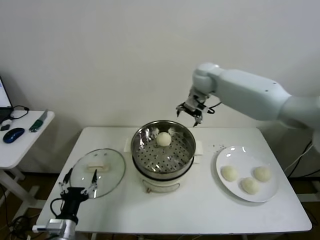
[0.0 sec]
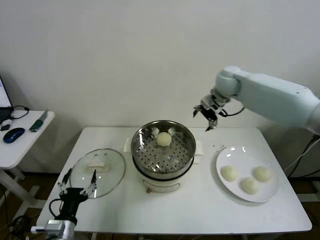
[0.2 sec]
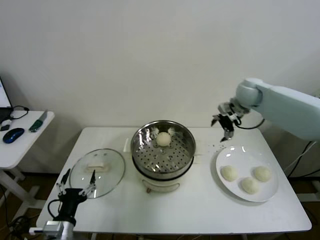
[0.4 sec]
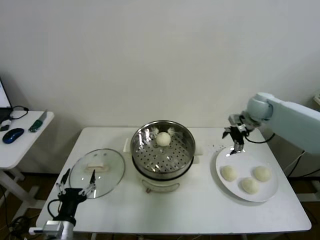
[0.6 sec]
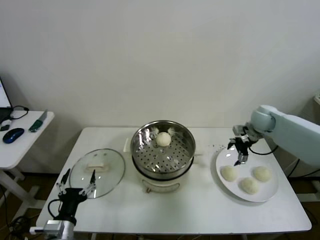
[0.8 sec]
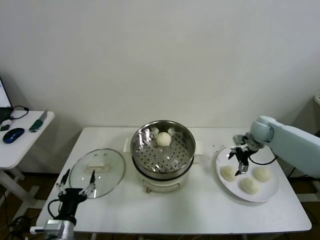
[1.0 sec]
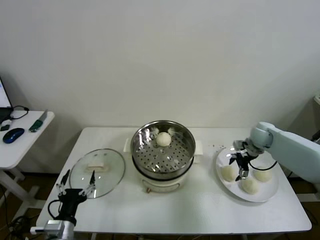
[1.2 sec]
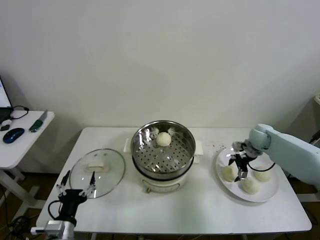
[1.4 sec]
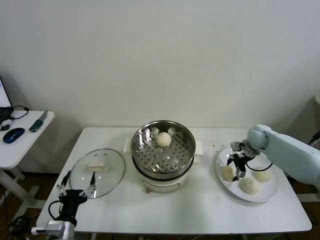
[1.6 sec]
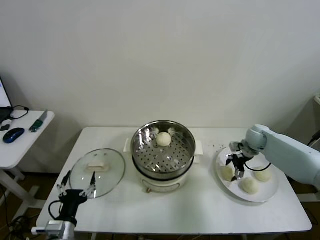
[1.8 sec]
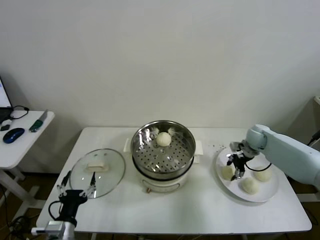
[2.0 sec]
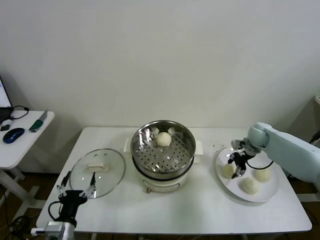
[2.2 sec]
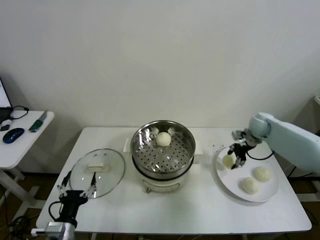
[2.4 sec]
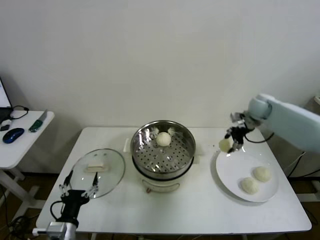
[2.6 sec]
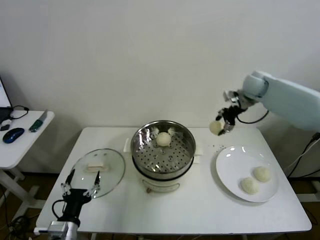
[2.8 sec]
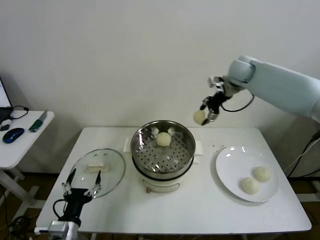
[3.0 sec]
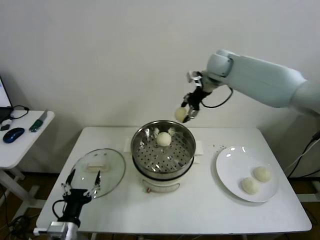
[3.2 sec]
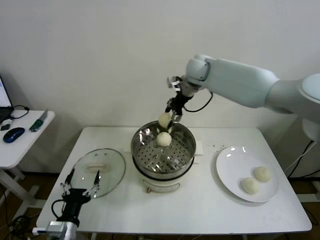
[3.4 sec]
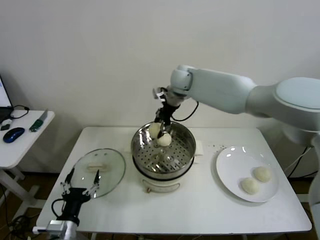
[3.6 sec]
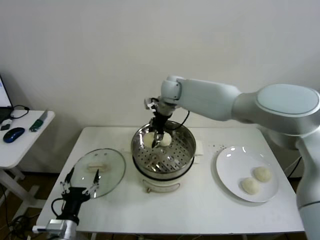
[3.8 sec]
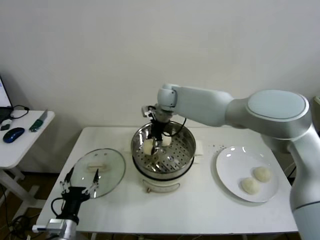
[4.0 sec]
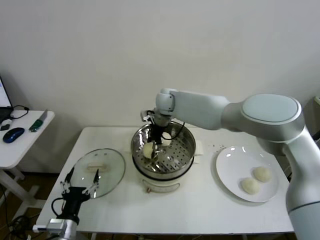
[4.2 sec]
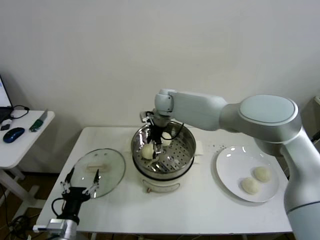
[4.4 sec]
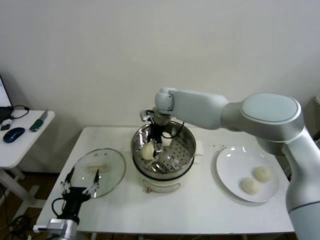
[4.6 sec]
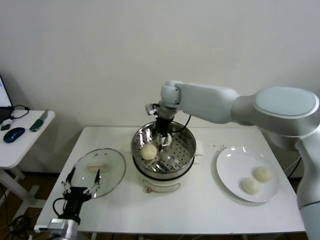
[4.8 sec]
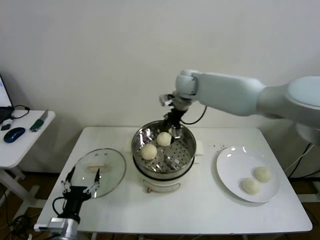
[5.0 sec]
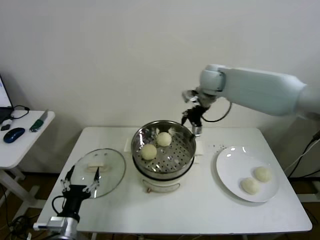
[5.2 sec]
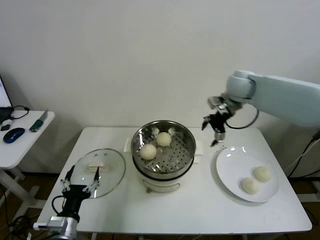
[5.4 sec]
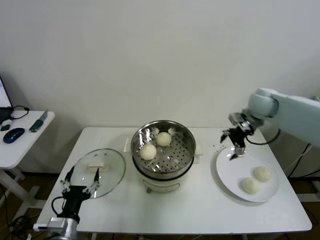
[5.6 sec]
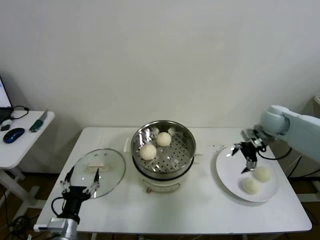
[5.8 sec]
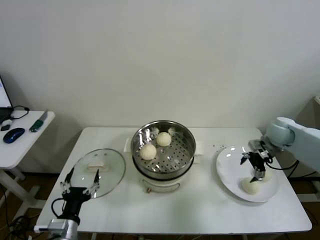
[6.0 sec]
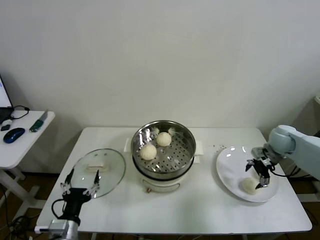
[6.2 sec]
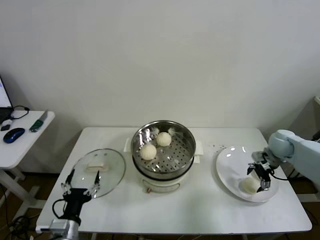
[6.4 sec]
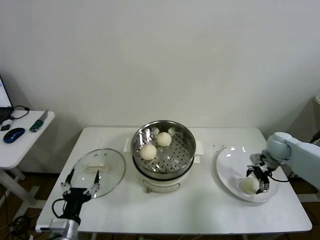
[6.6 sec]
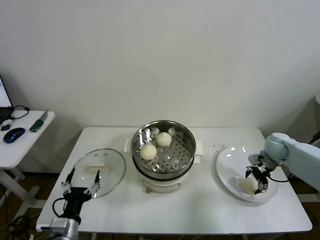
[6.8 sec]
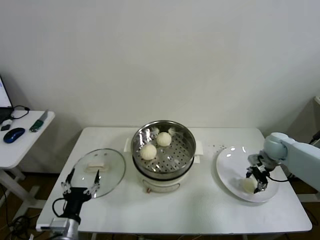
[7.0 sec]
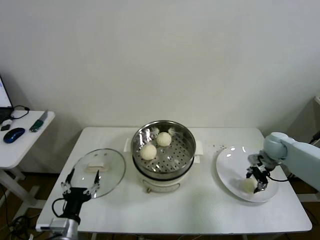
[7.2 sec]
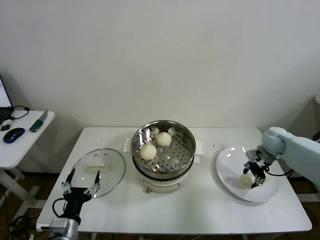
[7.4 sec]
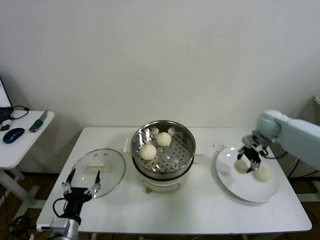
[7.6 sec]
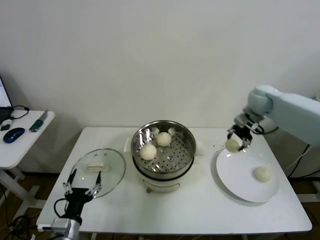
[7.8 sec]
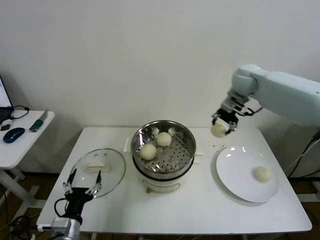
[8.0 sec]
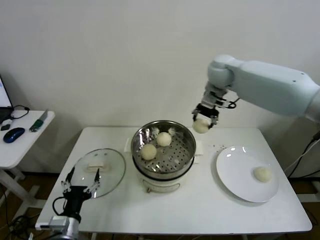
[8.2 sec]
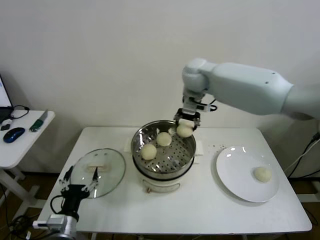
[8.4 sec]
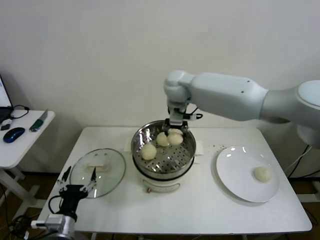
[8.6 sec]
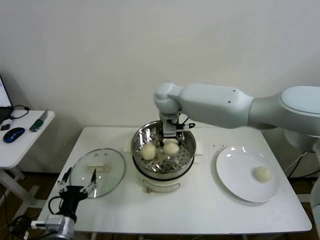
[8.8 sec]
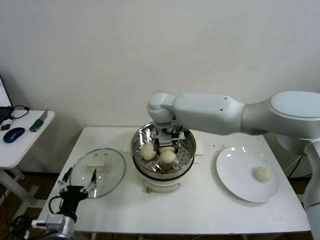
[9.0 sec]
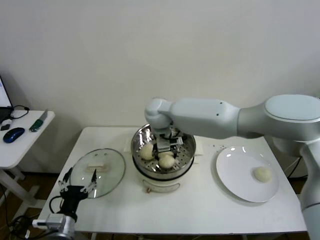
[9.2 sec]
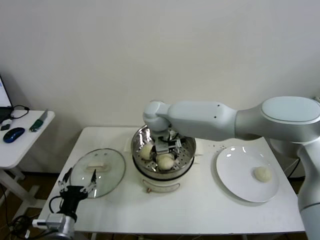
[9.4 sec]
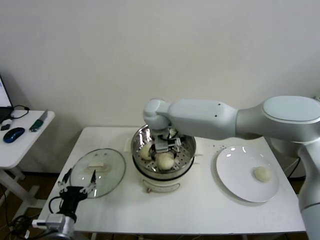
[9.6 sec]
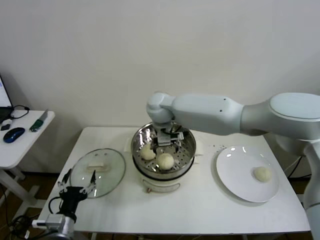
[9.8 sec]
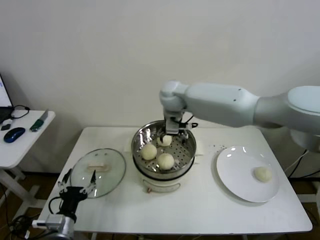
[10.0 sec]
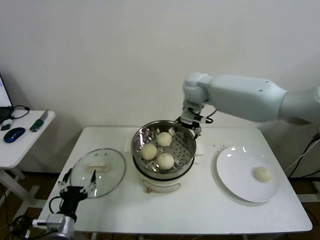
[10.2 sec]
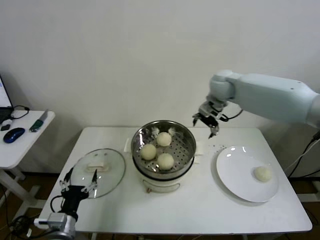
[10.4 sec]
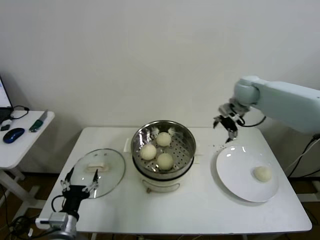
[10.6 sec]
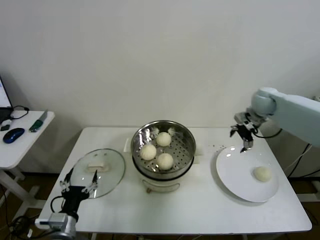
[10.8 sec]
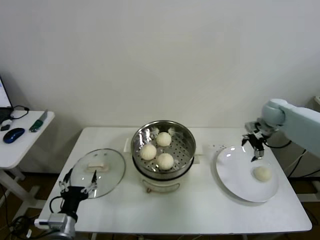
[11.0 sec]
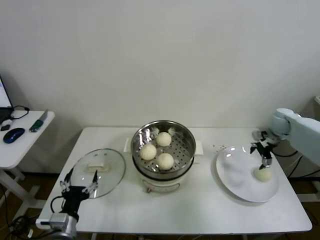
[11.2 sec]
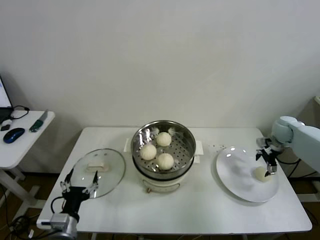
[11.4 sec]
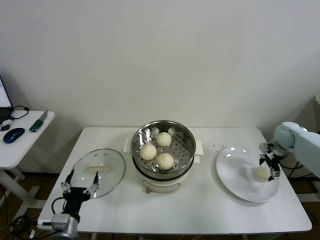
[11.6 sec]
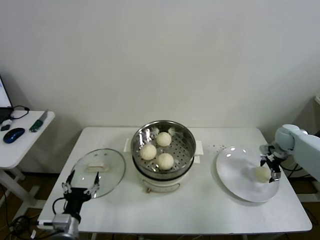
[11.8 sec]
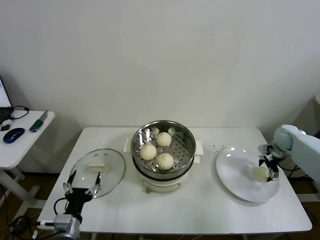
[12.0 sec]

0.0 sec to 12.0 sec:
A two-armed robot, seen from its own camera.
Step, 0.0 sec to 1.8 sec: Grasp the baozi in the plate with right gripper.
Step, 2.0 sec to 4.2 sec: Place the baozi on the steamer with right gripper.
Step, 4.4 sec to 6.8 sec: Grasp the baozi in the plate with right gripper.
Step, 7.0 sec to 9.4 sec: Place the baozi on the steamer with right gripper.
0.0 sec to 1.6 sec: The right gripper travels to the right and downward by roughly 35 cm.
1.6 sec to 3.0 sec: The right gripper goes about 30 cm upward and to the left, and closes up.
3.0 sec to 4.4 sec: The right gripper travels to the left and downward by roughly 30 cm, and opens up.
4.4 sec to 6.0 sec: The right gripper travels to the right by approximately 40 cm.
6.0 sec to 7.6 sec: The right gripper reaches roughly 5 cm downward, then returns, and closes its fingers.
7.6 sec to 9.0 sec: The right gripper is displaced to the left by some 40 cm.
9.0 sec to 10.4 sec: The right gripper heads to the right, covering roughly 20 cm, and opens its fingers.
10.4 sec to 12.0 sec: The right gripper travels to the right and downward by approximately 35 cm.

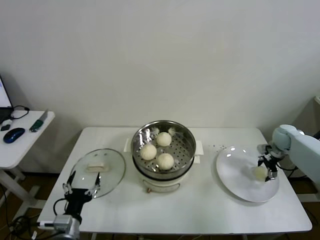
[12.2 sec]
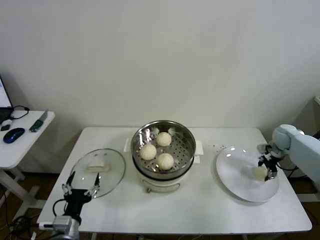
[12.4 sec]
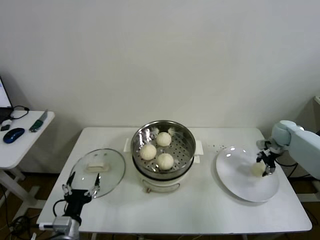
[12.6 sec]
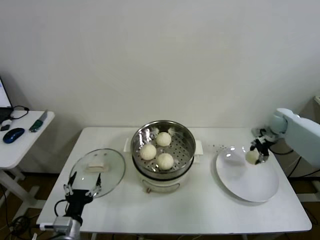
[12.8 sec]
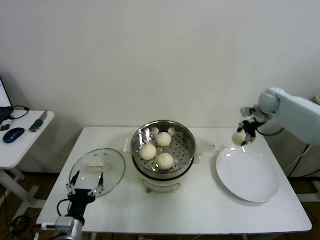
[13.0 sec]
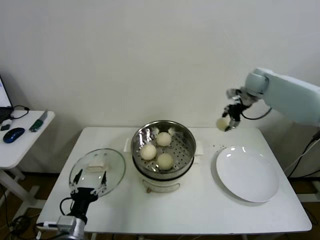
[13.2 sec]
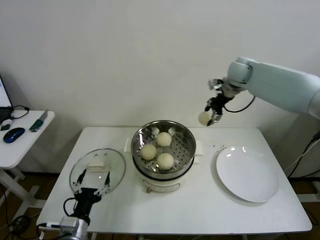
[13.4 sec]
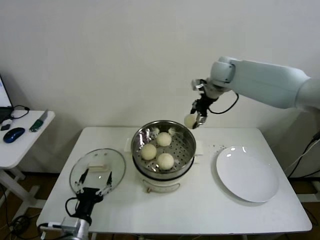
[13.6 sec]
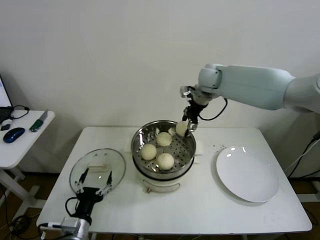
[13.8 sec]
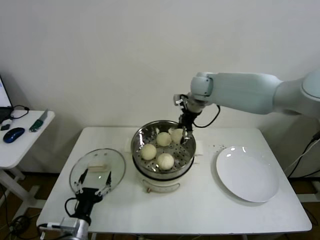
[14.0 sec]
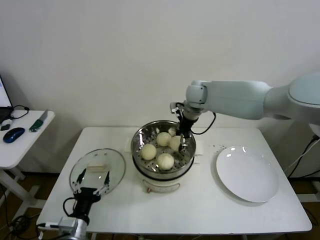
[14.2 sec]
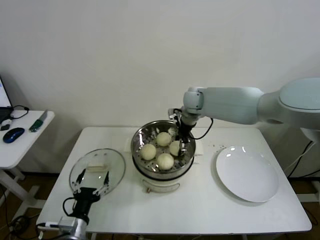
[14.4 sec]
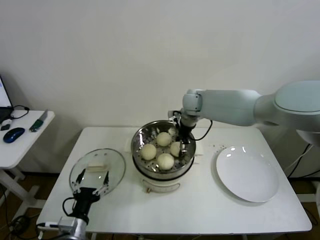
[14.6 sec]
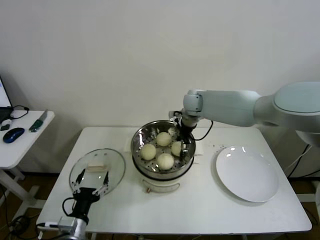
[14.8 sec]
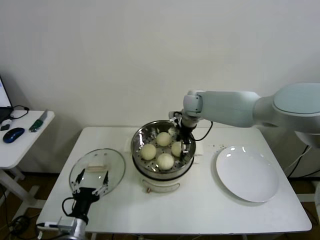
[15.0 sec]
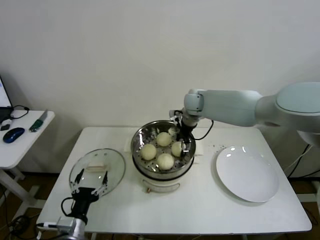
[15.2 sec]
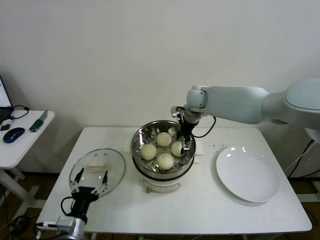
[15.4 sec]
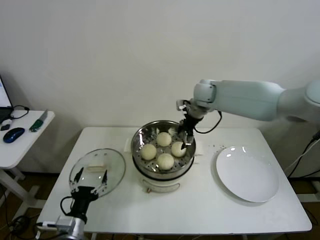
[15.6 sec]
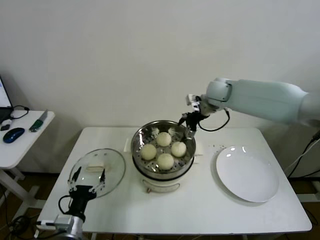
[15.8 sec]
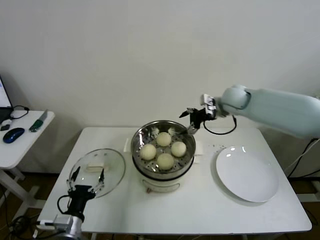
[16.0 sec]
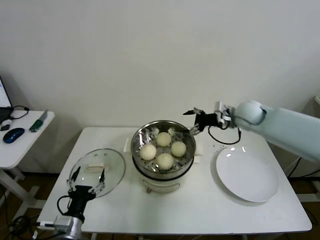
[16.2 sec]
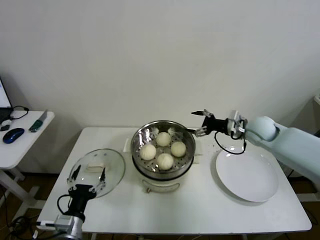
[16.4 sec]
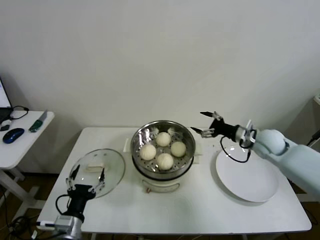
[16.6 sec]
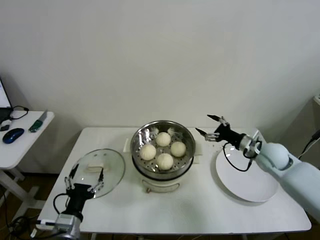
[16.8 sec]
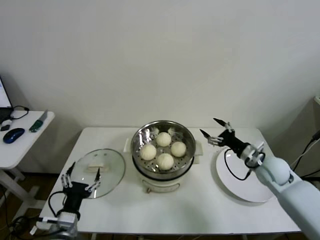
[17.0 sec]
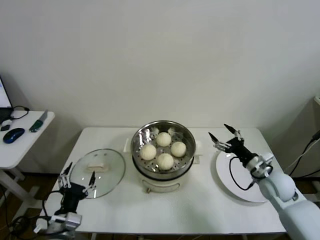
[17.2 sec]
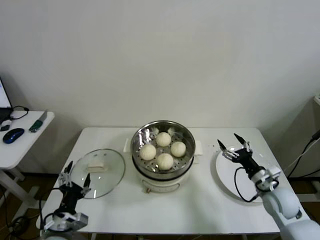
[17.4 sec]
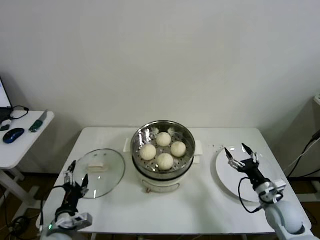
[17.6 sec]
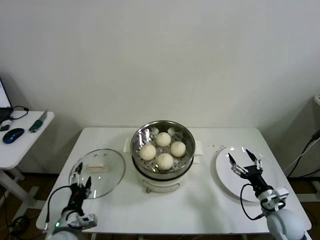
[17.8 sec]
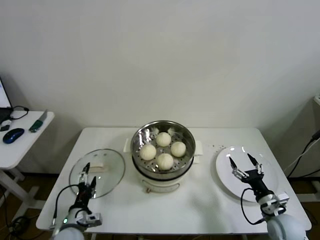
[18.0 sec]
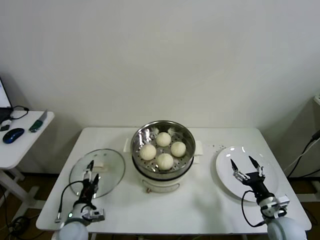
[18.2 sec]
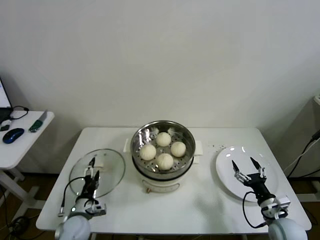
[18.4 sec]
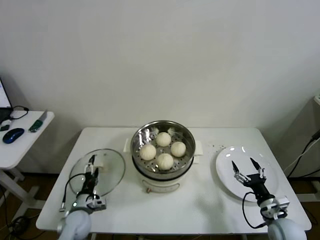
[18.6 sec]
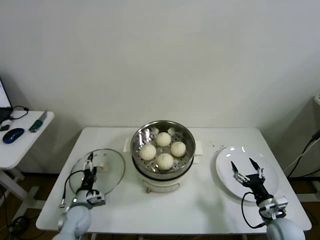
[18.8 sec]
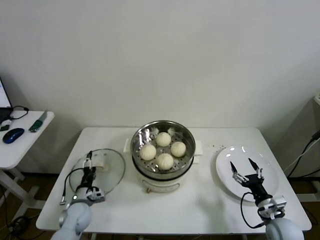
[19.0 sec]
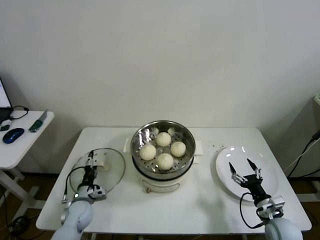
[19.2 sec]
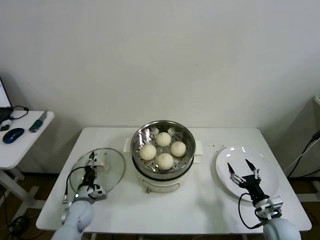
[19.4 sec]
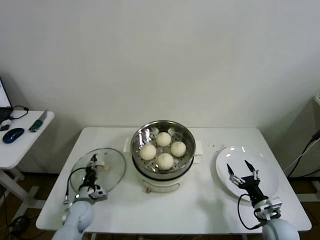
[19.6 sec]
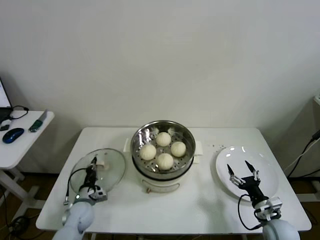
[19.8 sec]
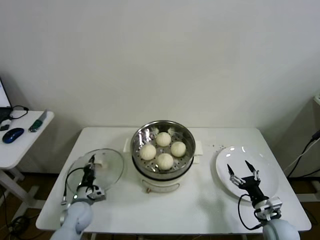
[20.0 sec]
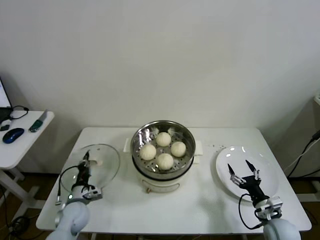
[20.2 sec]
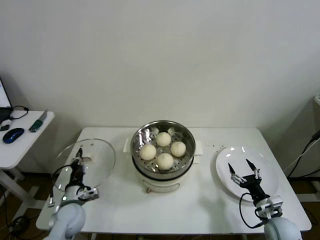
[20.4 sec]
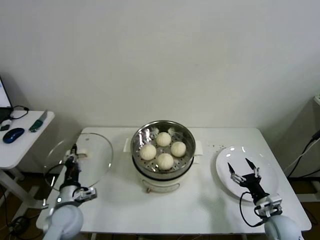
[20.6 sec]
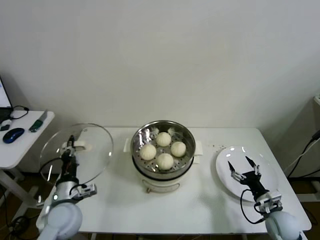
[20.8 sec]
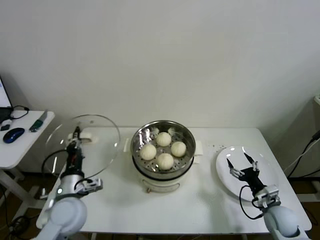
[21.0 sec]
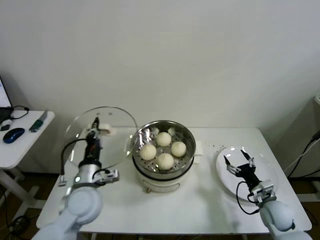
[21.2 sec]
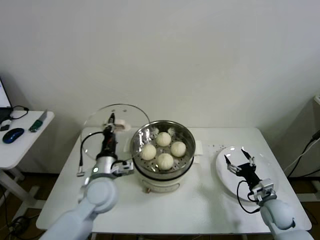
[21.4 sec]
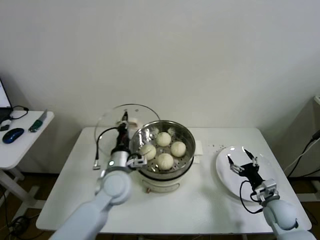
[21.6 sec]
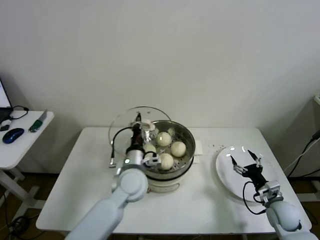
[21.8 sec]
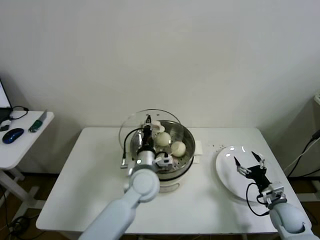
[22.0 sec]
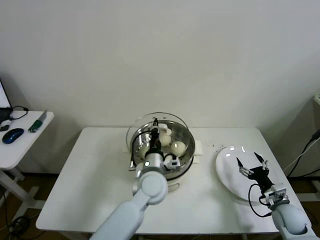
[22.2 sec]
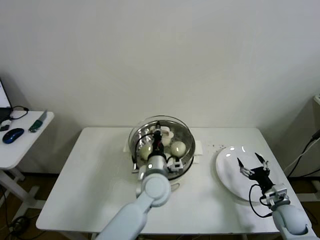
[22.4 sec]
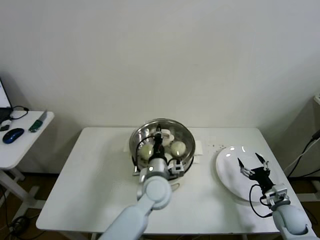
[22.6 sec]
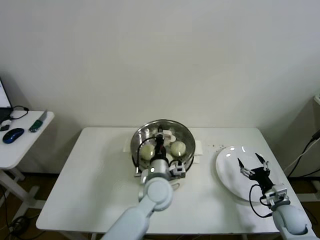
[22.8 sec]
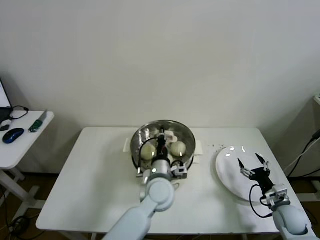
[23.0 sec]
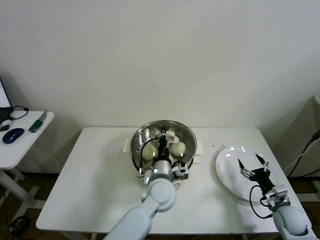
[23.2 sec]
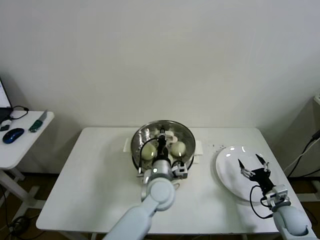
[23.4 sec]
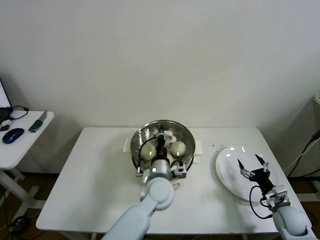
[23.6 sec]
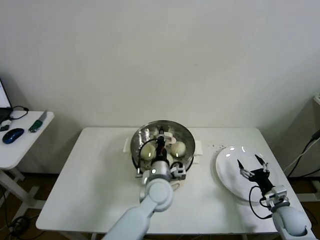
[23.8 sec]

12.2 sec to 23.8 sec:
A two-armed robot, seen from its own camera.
Step, 12.4 sec to 15.0 sec: Place the baozi on the steamer with right gripper.
Step, 15.2 sec to 19.6 sec: Grasp the pot lid with left gripper.
12.2 sec to 13.6 sec: The right gripper goes about 40 cm to the left and upward, and closes.
13.6 sec to 15.0 sec: The right gripper shifts roughly 15 cm downward and to the left, and opens.
15.0 sec to 16.6 sec: The right gripper moves to the right and backward, about 25 cm, and opens up.
16.6 sec to 18.0 sec: The left gripper heads downward, covering roughly 5 cm. Meanwhile the right gripper travels backward and downward by approximately 25 cm.
18.0 sec to 19.4 sec: The left gripper heads forward and downward, covering approximately 15 cm.
19.4 sec to 21.0 sec: The left gripper shifts some 20 cm upward, and closes its fingers.
21.0 sec to 22.4 sec: The left gripper travels to the right by approximately 25 cm.
22.4 sec to 23.8 sec: The grippers make only small movements.
